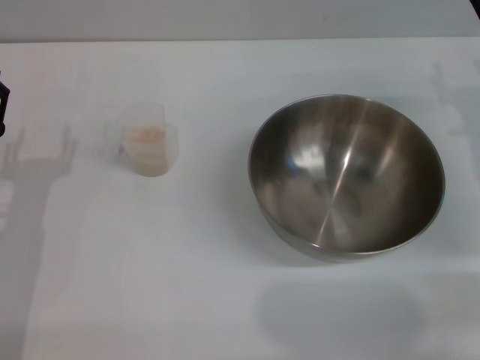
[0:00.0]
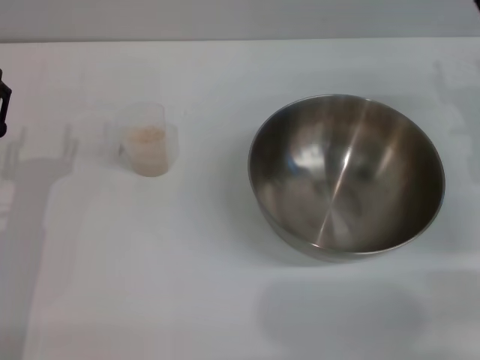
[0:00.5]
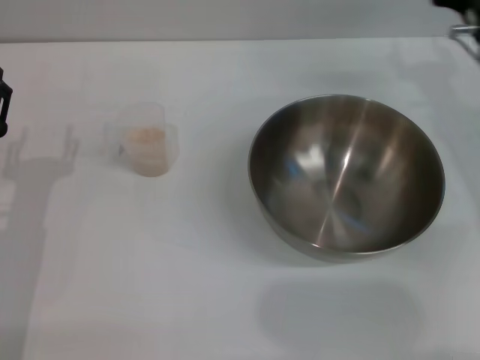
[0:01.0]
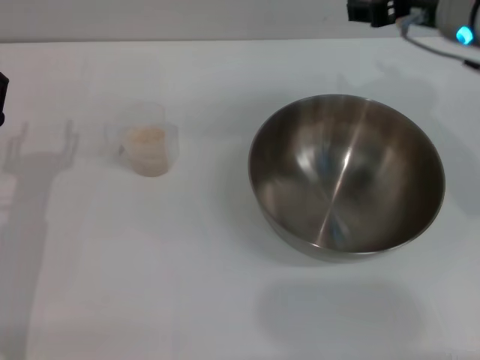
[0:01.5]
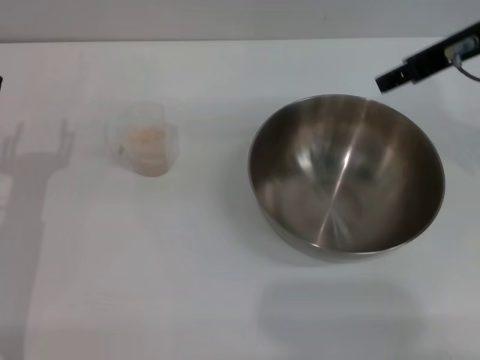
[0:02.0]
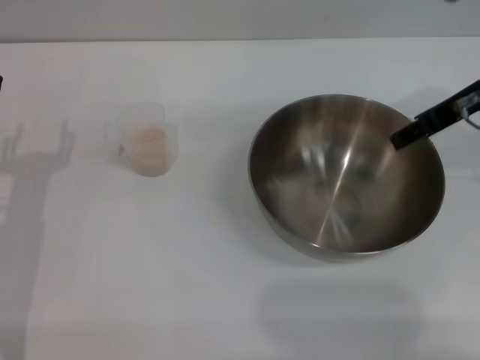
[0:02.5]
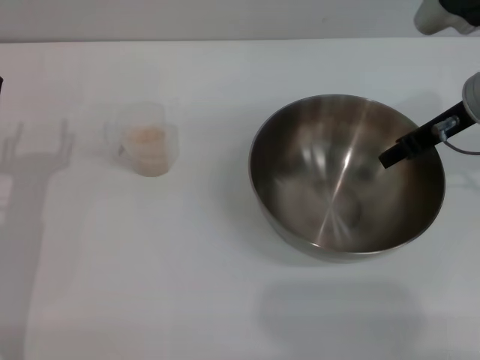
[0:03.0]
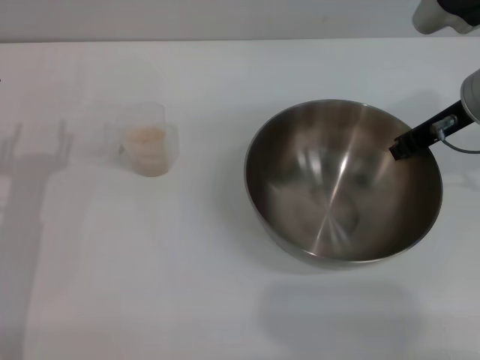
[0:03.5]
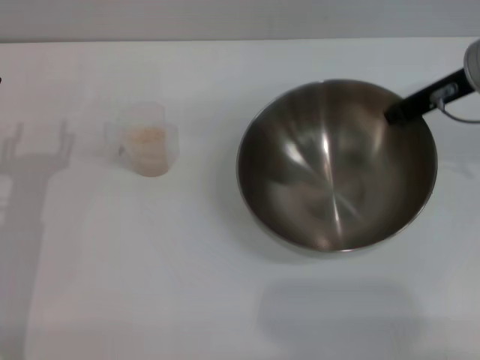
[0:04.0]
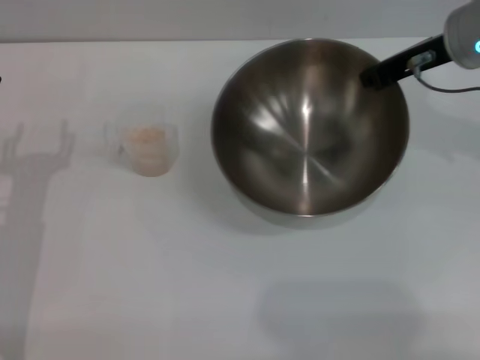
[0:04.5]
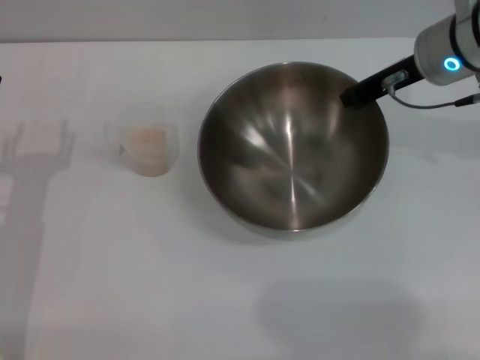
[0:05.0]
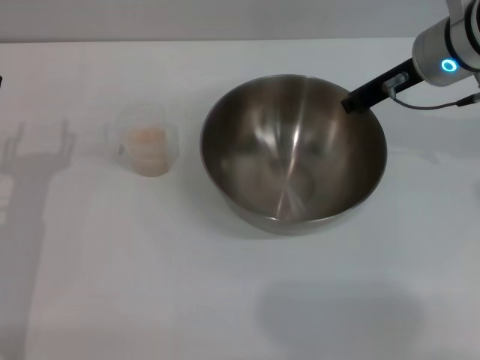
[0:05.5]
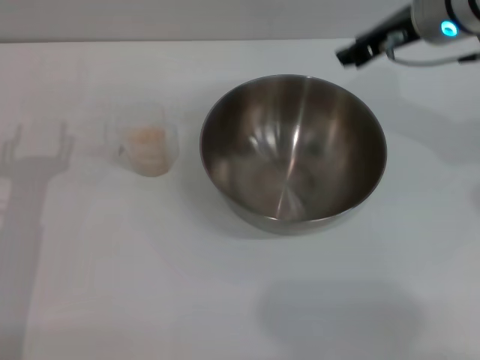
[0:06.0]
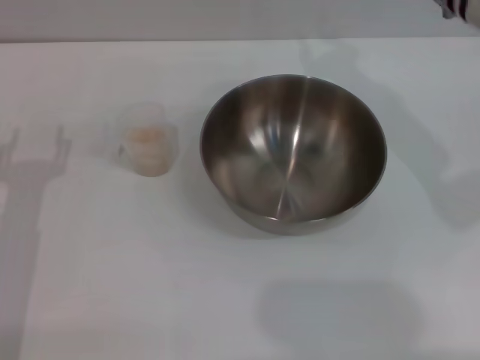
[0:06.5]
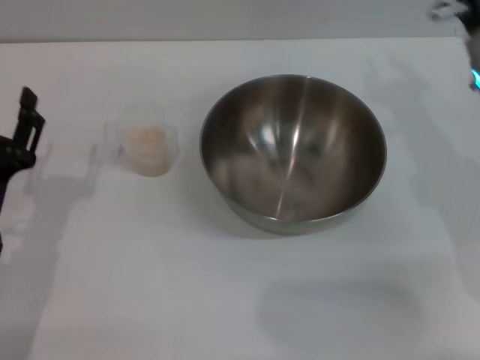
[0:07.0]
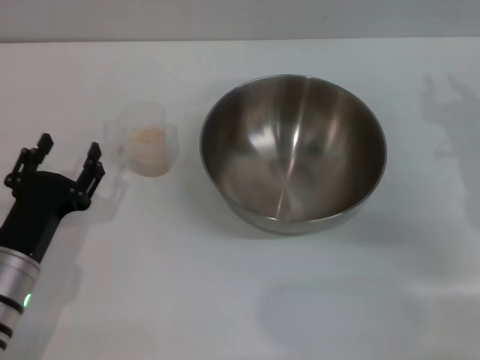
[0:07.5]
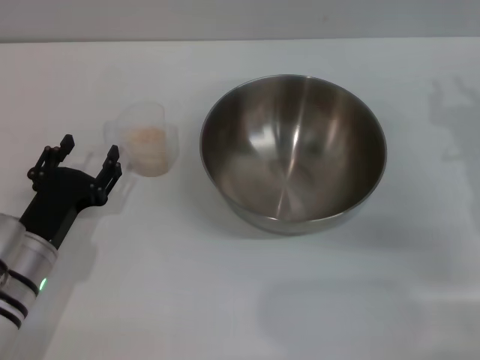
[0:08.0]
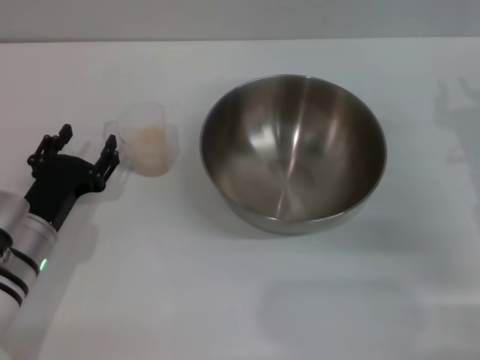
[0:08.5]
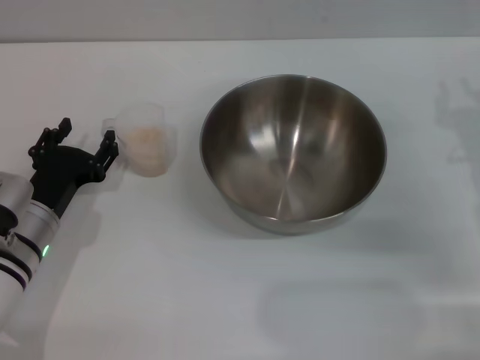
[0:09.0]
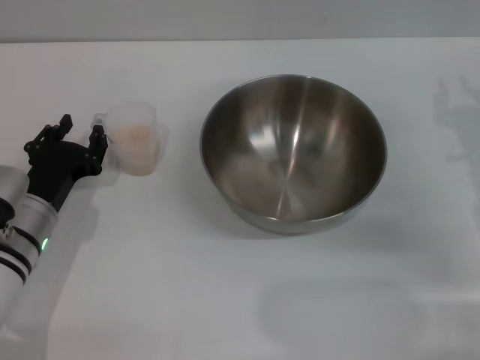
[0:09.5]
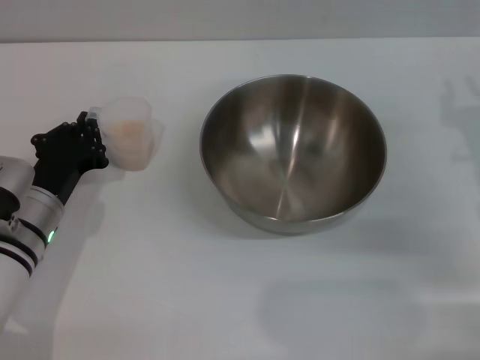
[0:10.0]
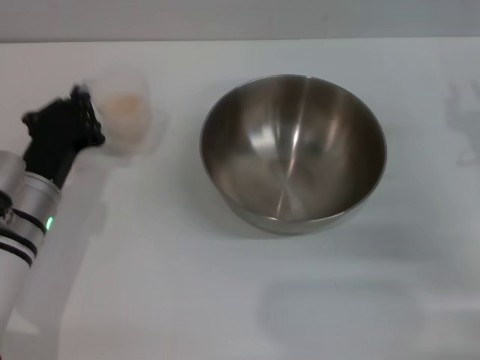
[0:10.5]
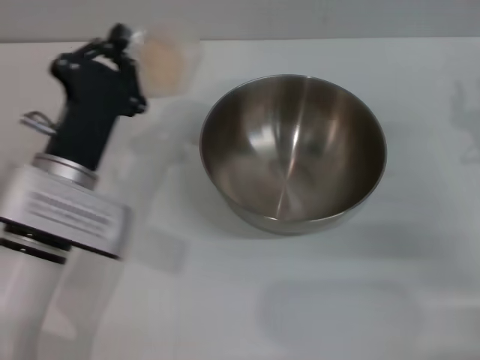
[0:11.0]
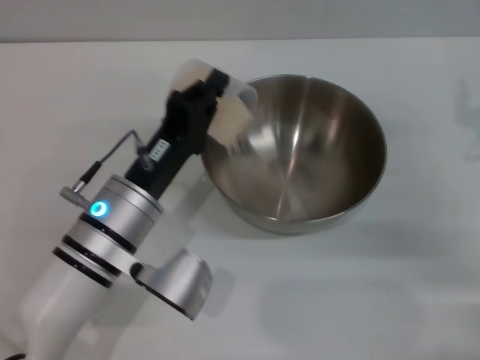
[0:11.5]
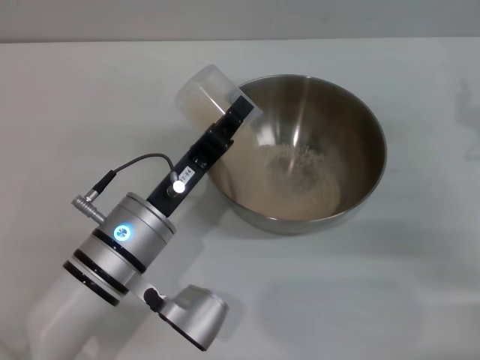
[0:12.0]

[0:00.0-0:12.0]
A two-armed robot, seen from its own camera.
Task of the whole recording: Place the bowl in the middle of the table with one hand and pour the rice from the grain cup into it with the other hand.
Step, 0:00.0 to 0:04.0: Pick up the bowl with the right gripper.
Step, 0:04.5 to 0:05.5: Place the bowl in the center of view with the right gripper.
Step, 0:06.0 to 0:10.5: Pick up the cup with rice in it with the left gripper.
0:00.0 to 0:02.0: The right gripper heads upward and to the left, covering some 20 cm.
0:02.0 to 0:04.0: The right gripper moves downward, about 5 cm, and closes its fingers.
0:04.0 to 0:06.0: The right gripper is displaced to the left by some 5 cm, and opens its fingers.
0:06.0 to 0:08.0: The left gripper shifts by roughly 5 cm, while the right gripper shifts some 20 cm downward, backward and to the right.
0:08.0 to 0:10.0: The left gripper closes its fingers.
0:10.0 to 0:12.0: The left gripper heads to the right, covering approximately 10 cm.

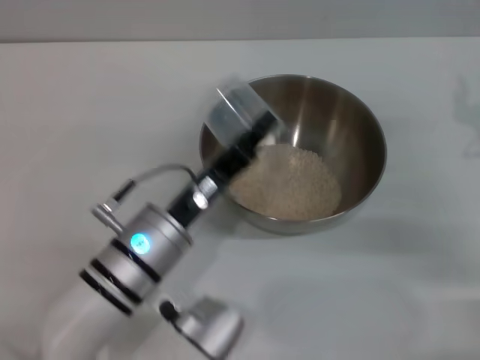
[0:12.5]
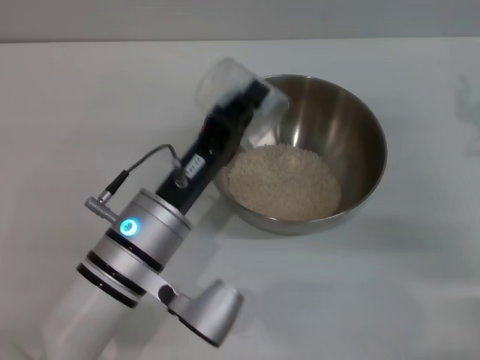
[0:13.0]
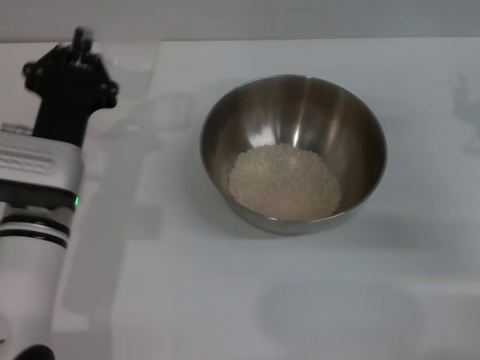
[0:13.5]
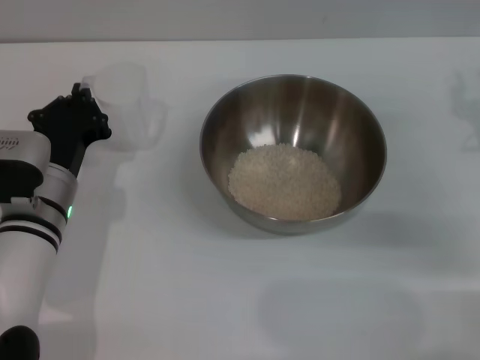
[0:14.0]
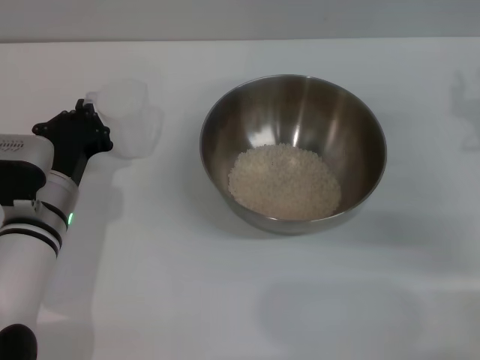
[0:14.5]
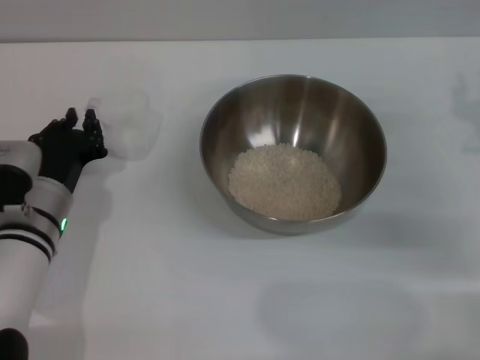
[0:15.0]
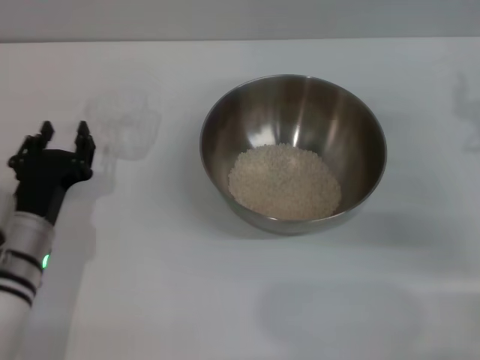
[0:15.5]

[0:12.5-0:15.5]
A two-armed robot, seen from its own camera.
Task of the whole recording: Place the bowl in the middle of the table with one hand and pour the rice from the grain cup into it with the other hand.
Step, 0:13.0 to 0:15.5: Place the cup on the table with the left gripper.
0:12.5 to 0:14.0: The left gripper goes about 10 cm to the left and forward.
0:14.0 to 0:15.5: The left gripper moves some 5 cm, and opens.
